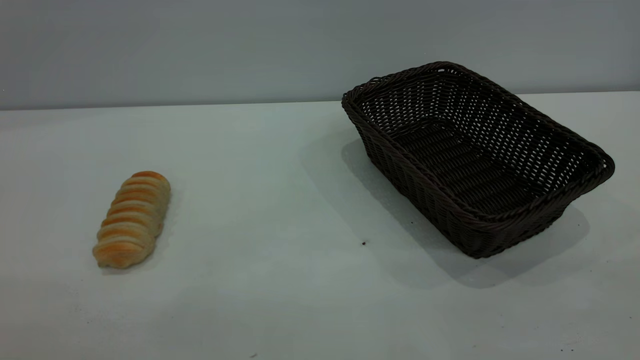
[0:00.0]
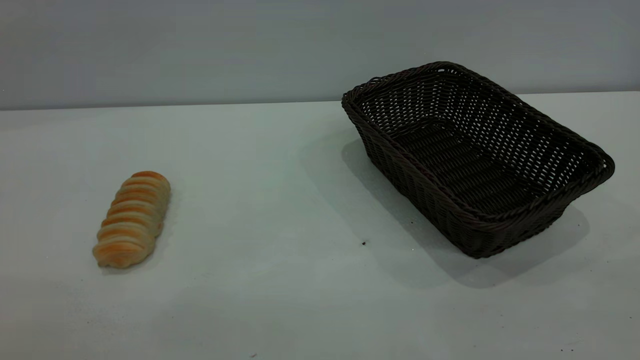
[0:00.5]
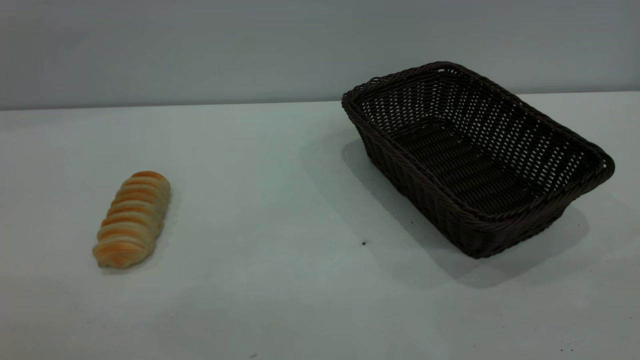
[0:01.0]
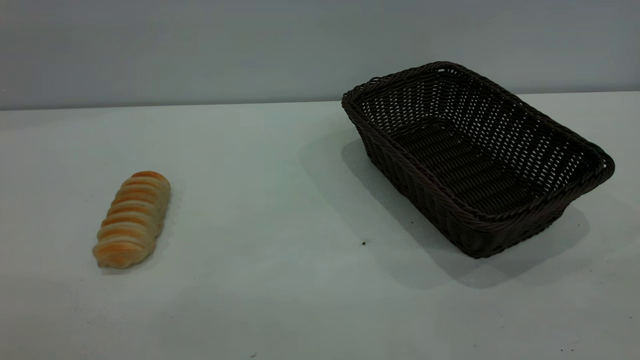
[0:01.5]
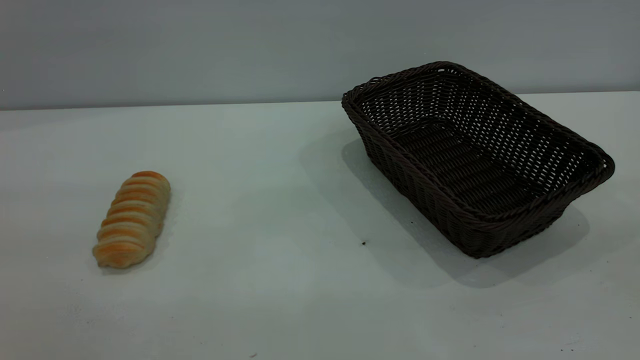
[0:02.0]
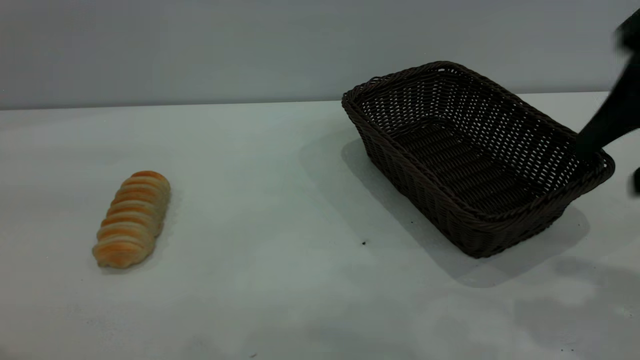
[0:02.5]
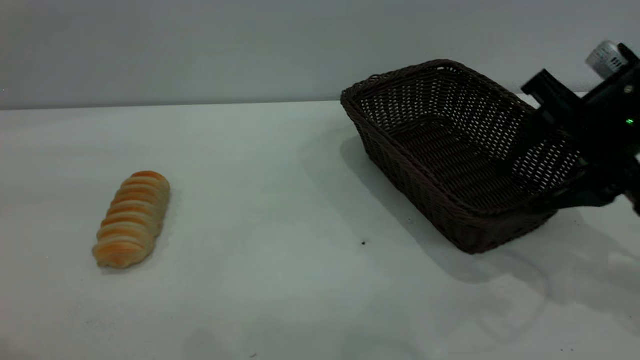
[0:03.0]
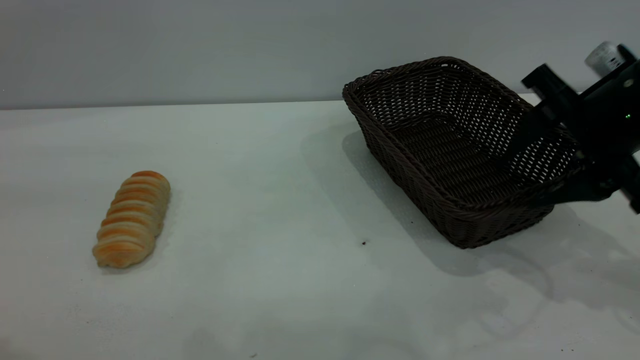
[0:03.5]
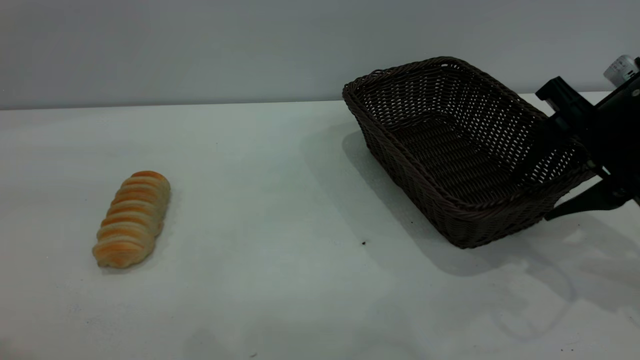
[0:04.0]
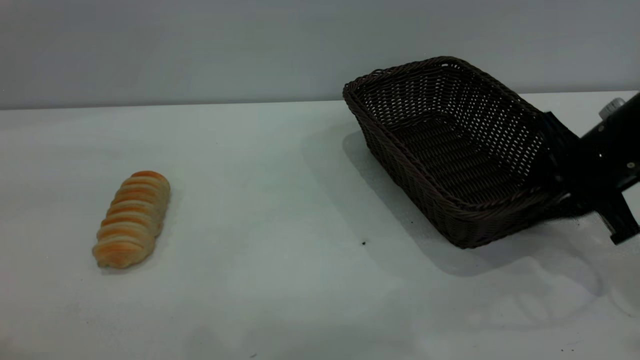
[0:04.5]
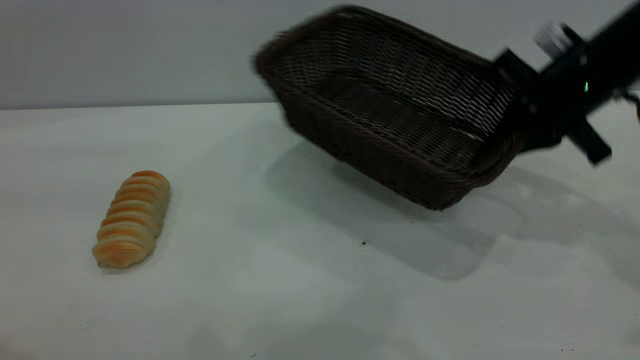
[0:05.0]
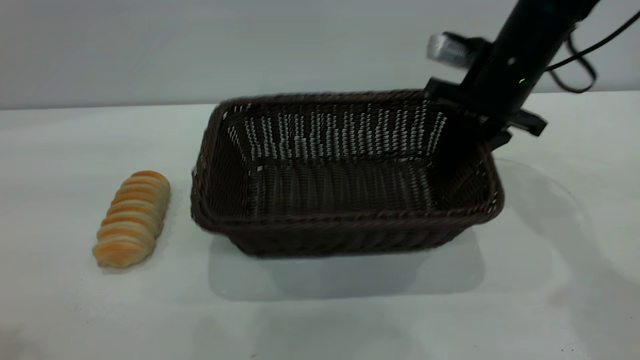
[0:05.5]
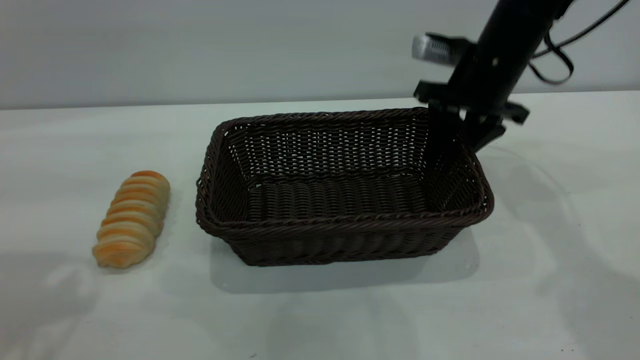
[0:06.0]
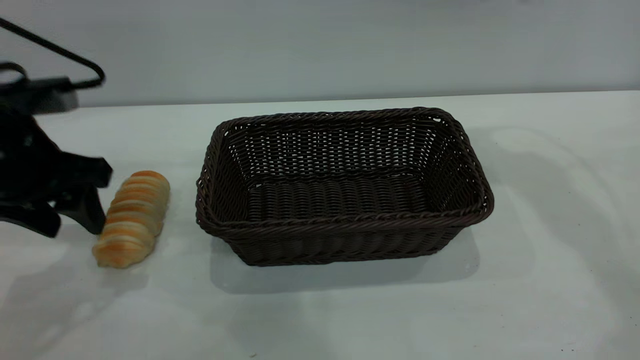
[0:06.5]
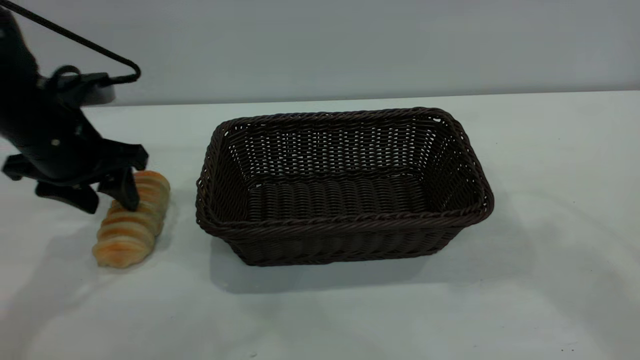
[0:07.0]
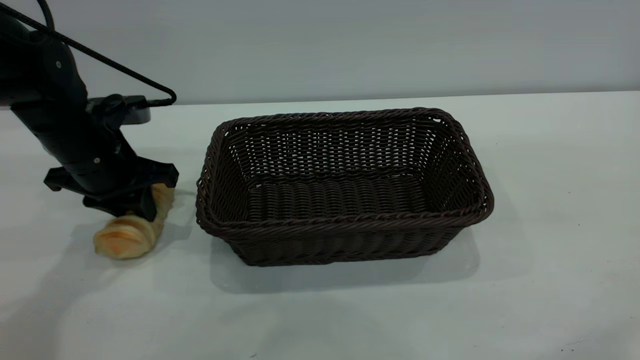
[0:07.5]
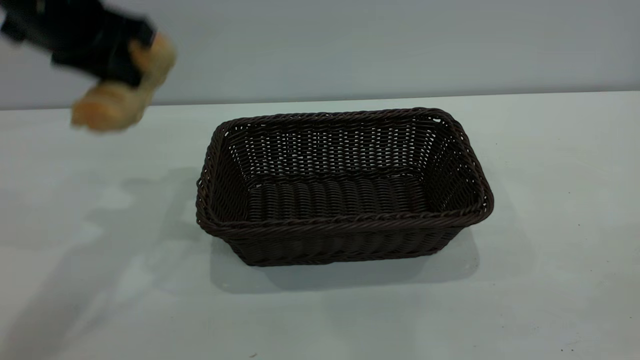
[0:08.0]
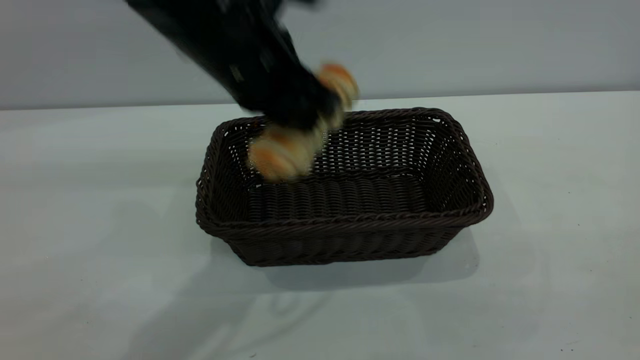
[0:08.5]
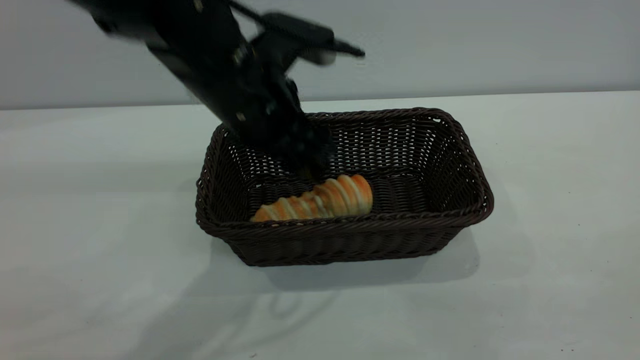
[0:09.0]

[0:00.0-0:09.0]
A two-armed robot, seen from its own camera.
Task of the whole recording: One hand grasps the black basket and places it in the middle of the table, while the other hand picks up the long bread and puts it into the black basket.
Step, 0:00.0 to 0:06.0: Move the basket to the center of view.
0:02.0 to 0:04.5: The right gripper heads forward and downward, covering roughly 35 cm, and closes its fingers.
0:04.5 to 0:07.0: The left gripper is displaced downward and forward by about 35 cm. Meanwhile the right gripper goes approximately 30 cm upward, and opens up.
0:07.0 to 0:09.0: The right gripper shifts roughly 30 cm backward. Meanwhile the left gripper is displaced to the right by some 20 cm, and closes and opens again.
